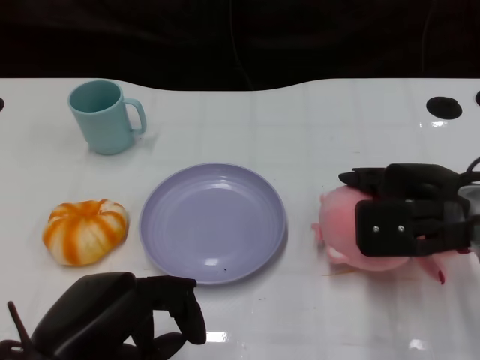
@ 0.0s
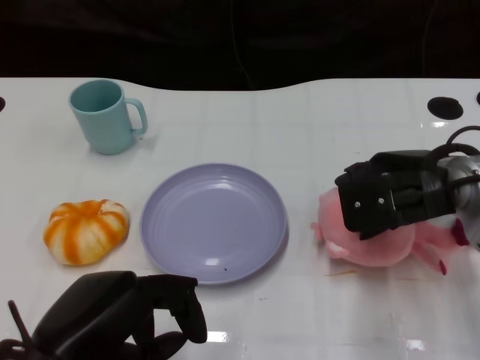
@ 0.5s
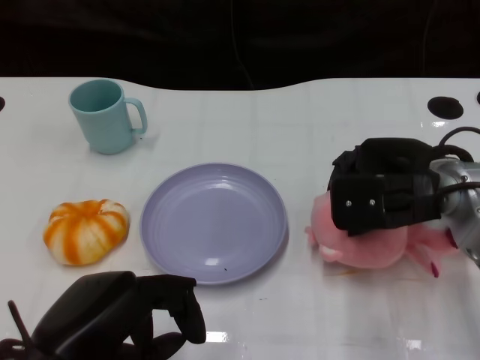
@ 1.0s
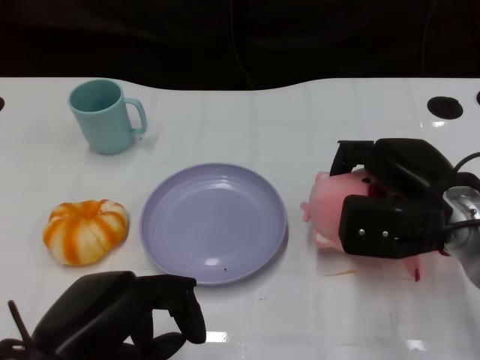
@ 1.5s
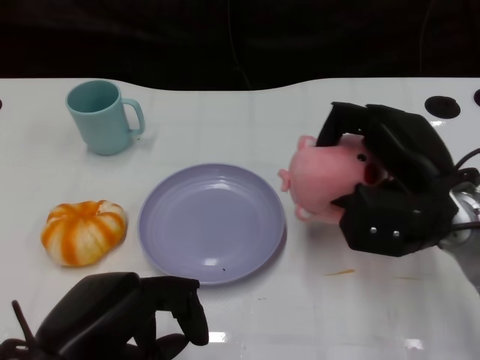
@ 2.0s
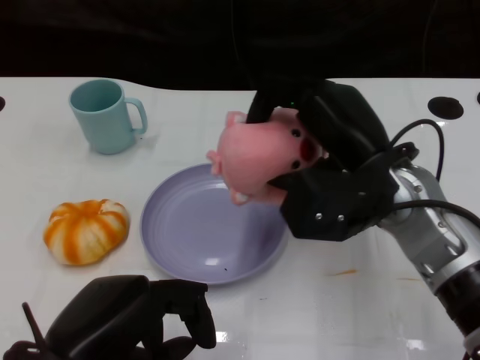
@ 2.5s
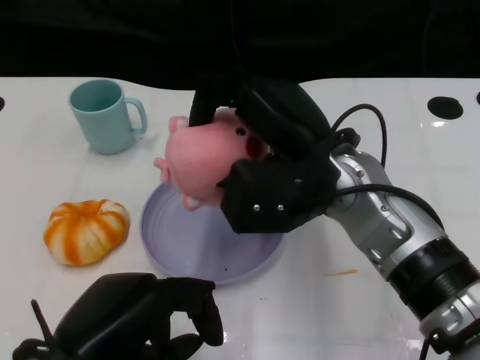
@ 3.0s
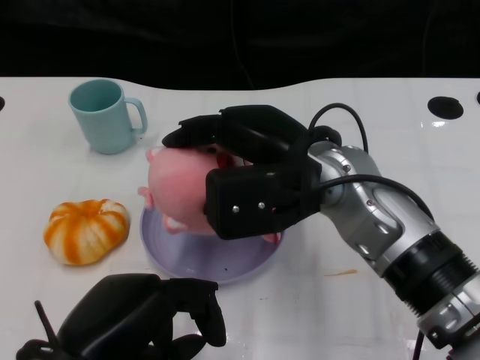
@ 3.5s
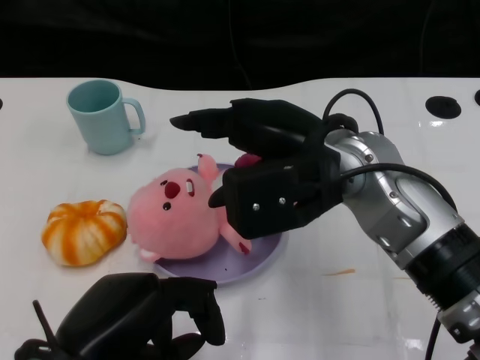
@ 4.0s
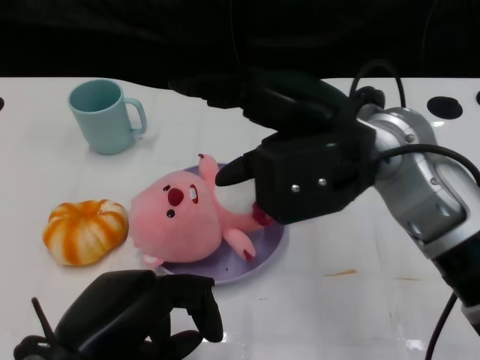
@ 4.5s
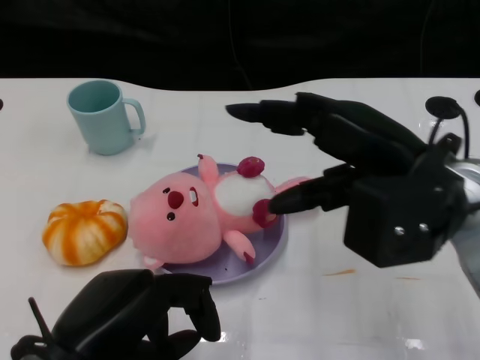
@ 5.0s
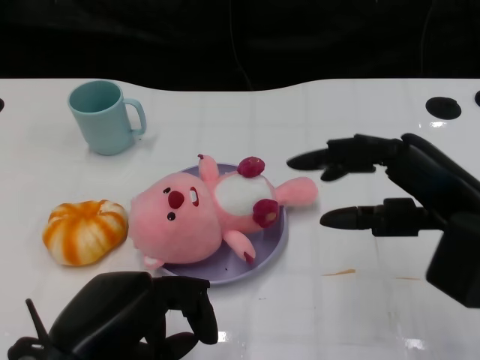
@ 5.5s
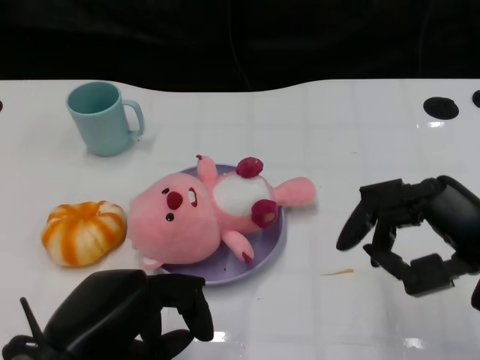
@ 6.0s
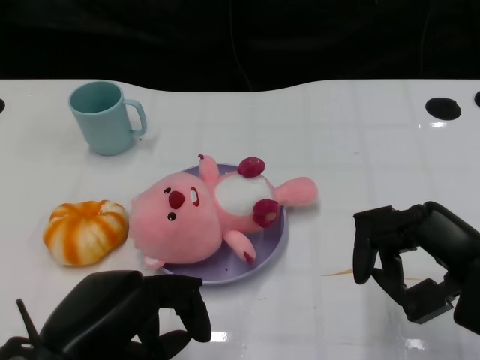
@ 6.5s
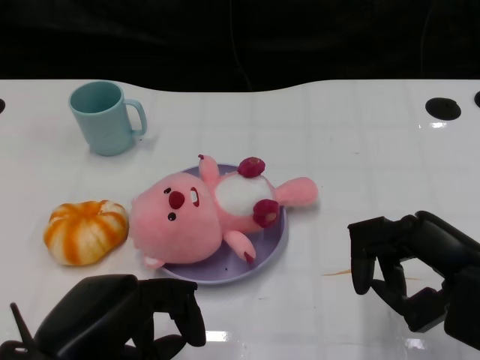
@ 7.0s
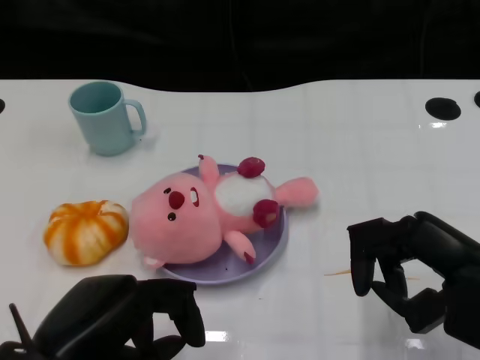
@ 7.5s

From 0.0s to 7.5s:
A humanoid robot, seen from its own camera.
Task of the whole recording: Pick up the doll on the other side of the plate and place it into the plate.
Step, from 0.0s to 2.5s: Grasp the pink doll with the right gripper.
Step, from 3.0s to 5.0s: Place the pink doll into the plate with the right gripper.
From 2.0s to 4.0s: The right hand moves to the left and upward, some 10 cm.
From 4.0s to 5.5s: The right hand shifts about 15 cm to the right and backward.
From 5.5s to 7.5s: The right hand changes place by roughly 5 cm.

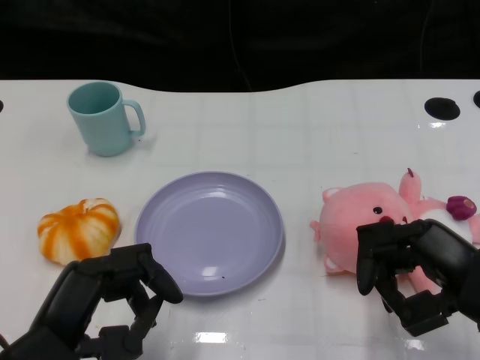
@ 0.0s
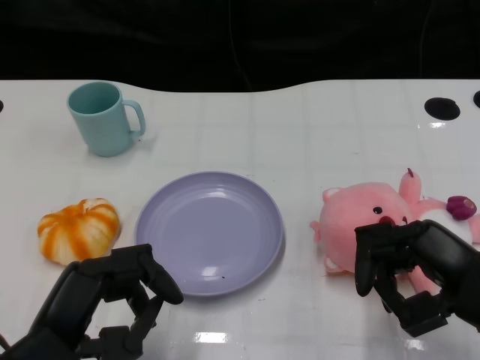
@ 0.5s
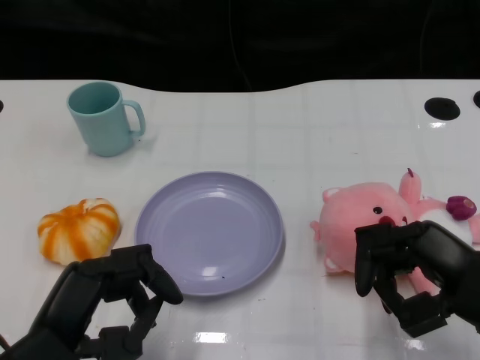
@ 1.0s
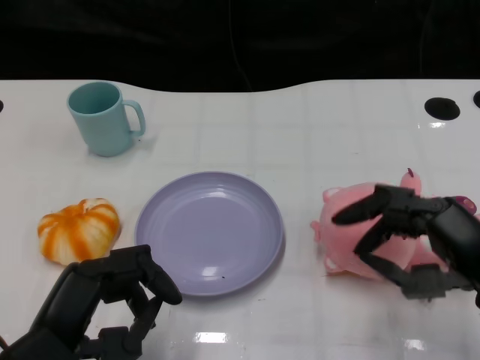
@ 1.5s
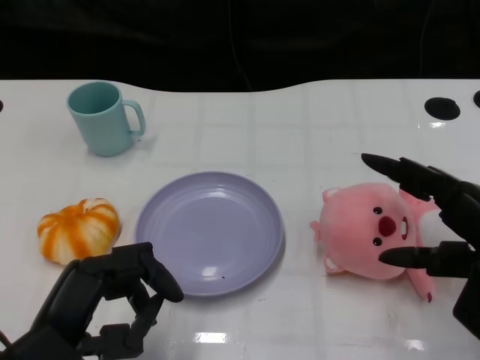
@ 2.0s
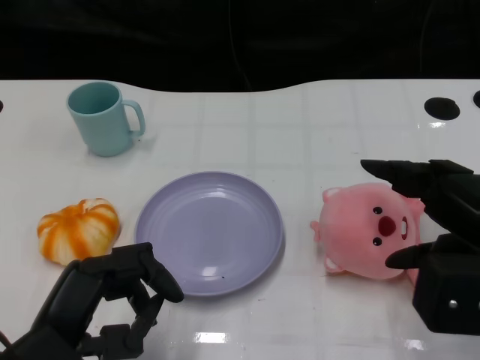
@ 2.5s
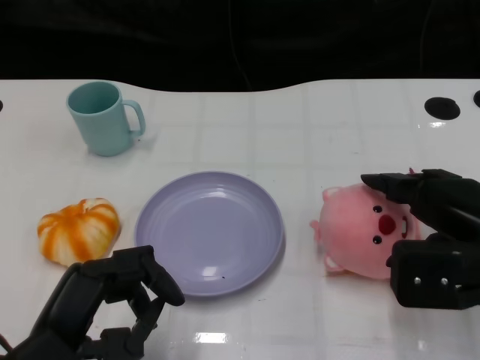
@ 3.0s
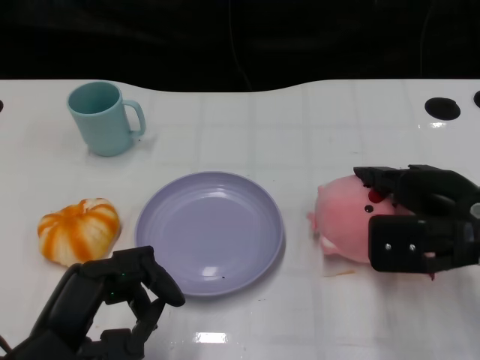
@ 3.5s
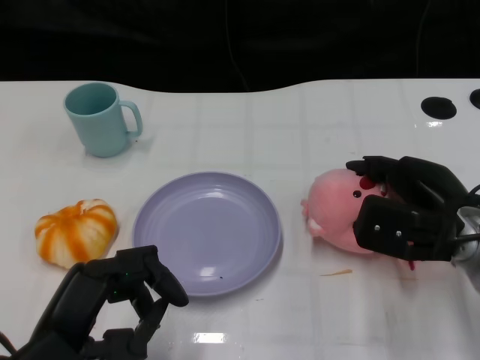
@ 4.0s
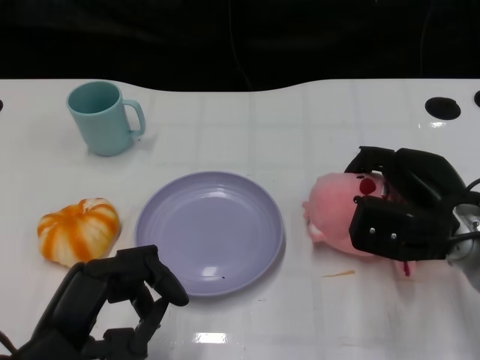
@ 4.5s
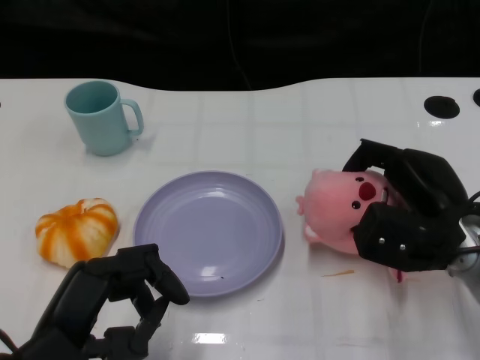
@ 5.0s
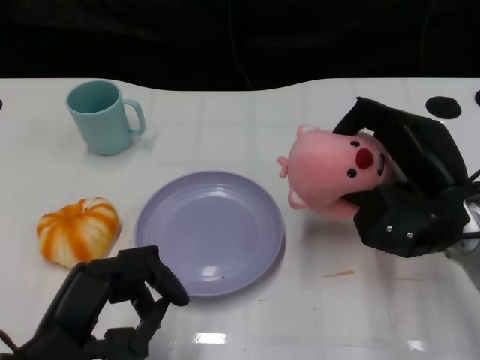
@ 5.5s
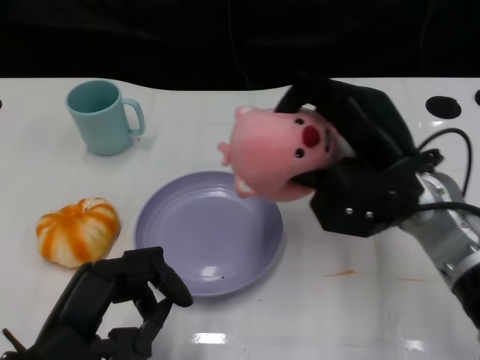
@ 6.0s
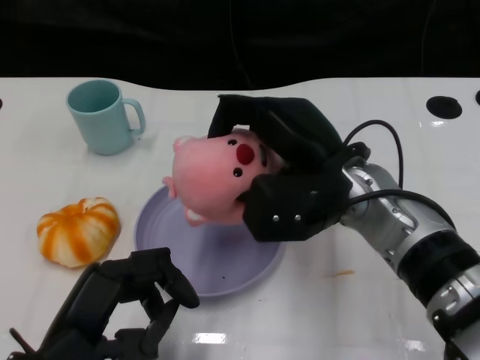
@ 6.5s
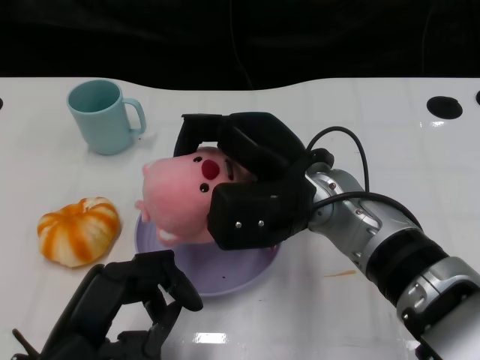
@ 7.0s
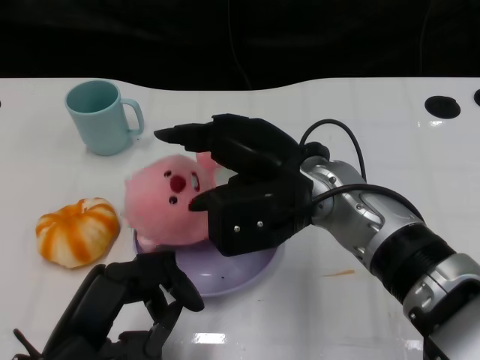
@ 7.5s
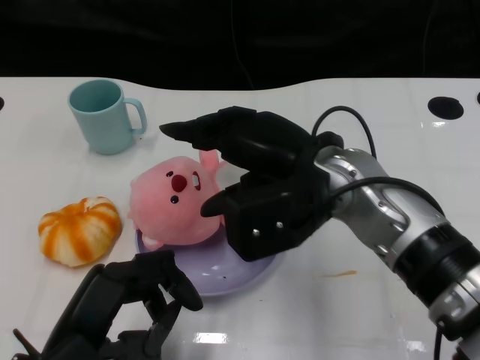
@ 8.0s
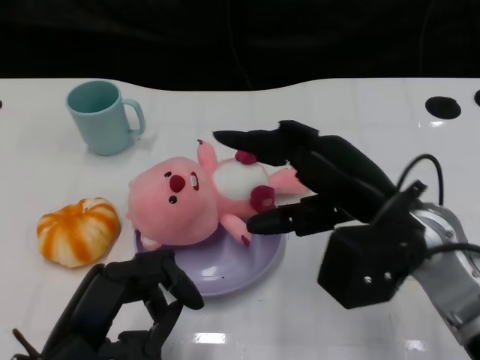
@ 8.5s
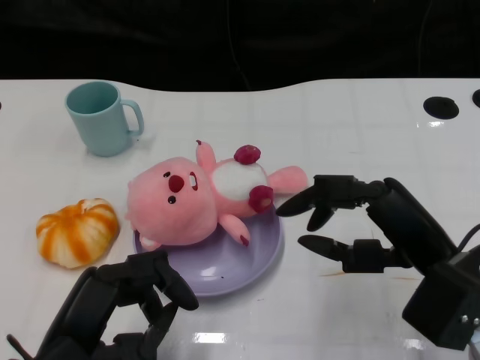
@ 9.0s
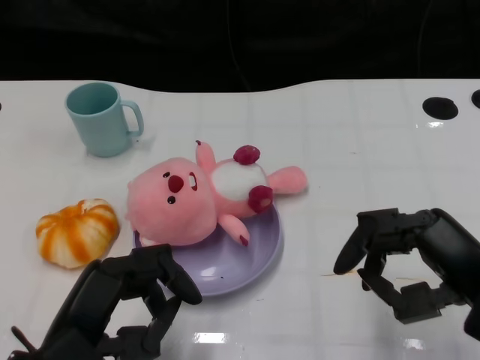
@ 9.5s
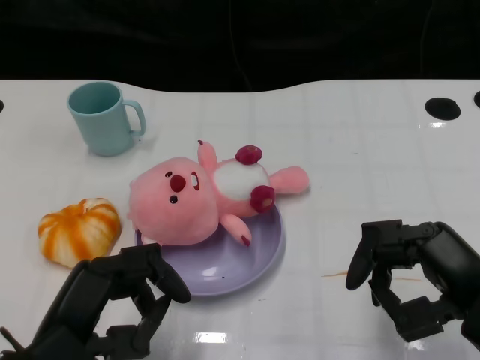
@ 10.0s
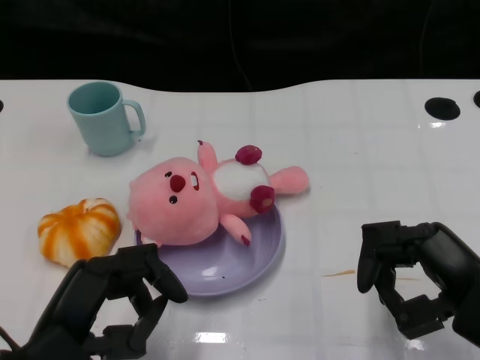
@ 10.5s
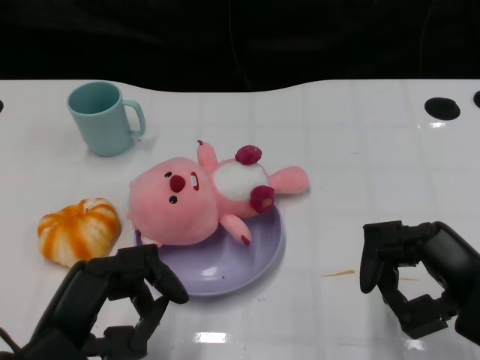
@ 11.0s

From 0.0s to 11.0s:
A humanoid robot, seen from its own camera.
Task of the whole recording: Pick up the doll on the other side of the plate and place it into the plate.
Step, from 1.0s to 6.0s: Grasp the pink doll with the right gripper.
Step, from 6.5s to 8.0s: Place the pink doll into the plate with the right gripper.
From 2.0s to 3.5s: The right hand goes some 10 cm forward.
From 5.5s to 7.5s: The right hand shifts about 15 cm to the left.
From 7.5s to 9.0s: The right hand travels to the right and backward by some 15 cm.
From 9.0s to 11.0s: The right hand changes place by approximately 5 cm.

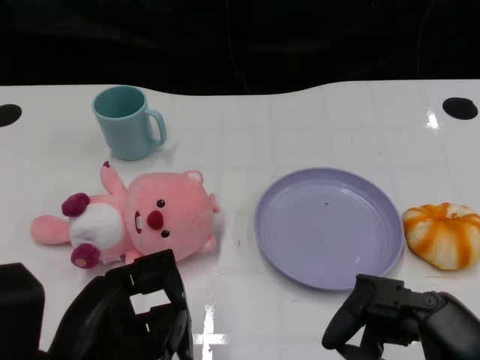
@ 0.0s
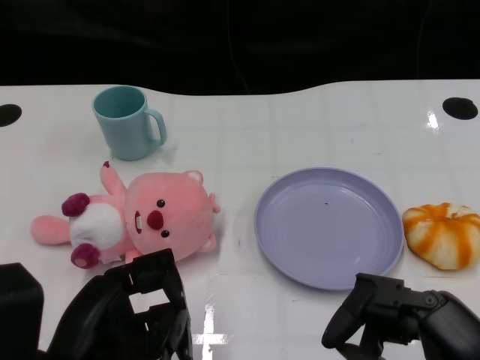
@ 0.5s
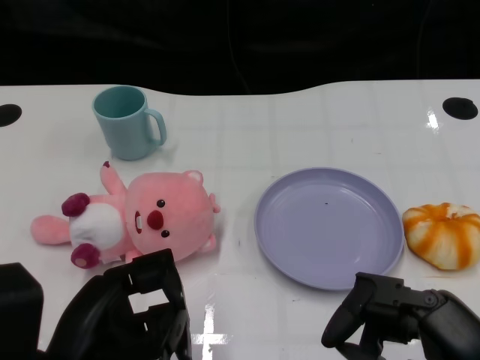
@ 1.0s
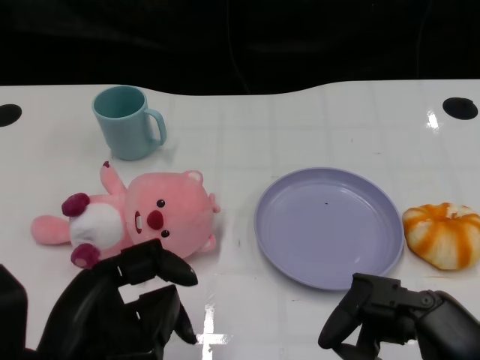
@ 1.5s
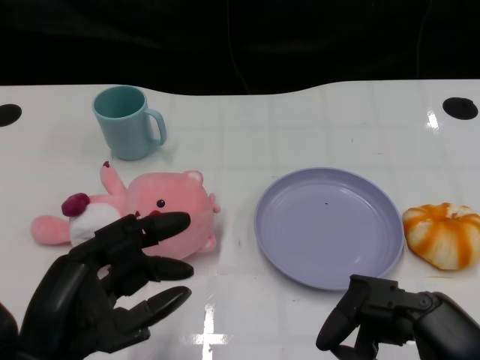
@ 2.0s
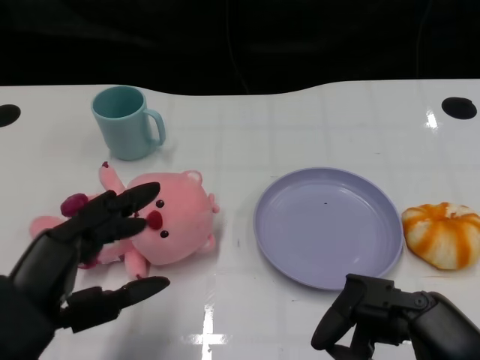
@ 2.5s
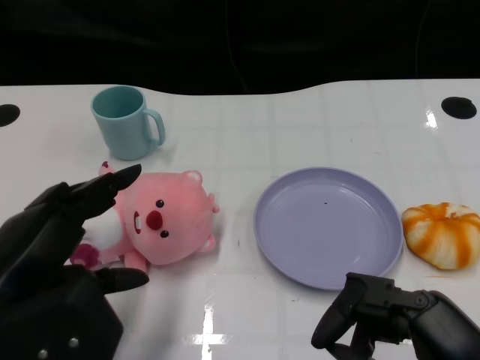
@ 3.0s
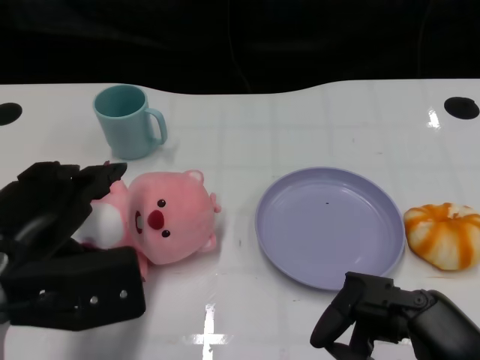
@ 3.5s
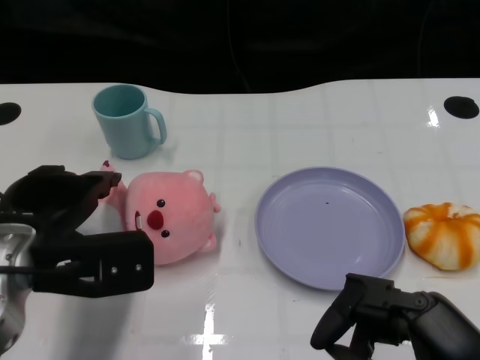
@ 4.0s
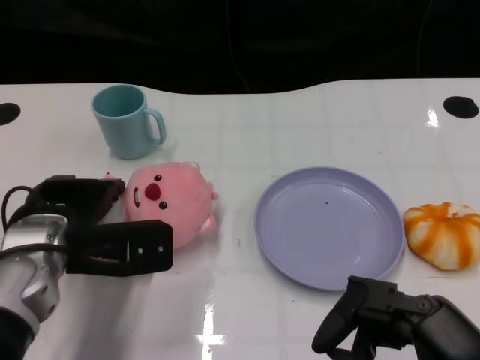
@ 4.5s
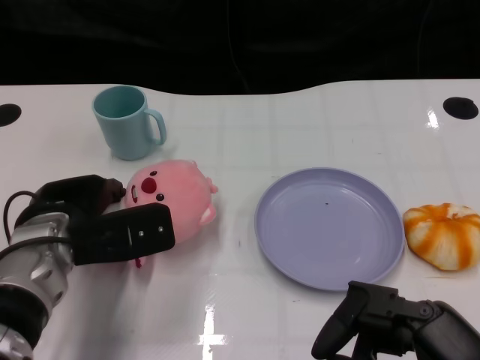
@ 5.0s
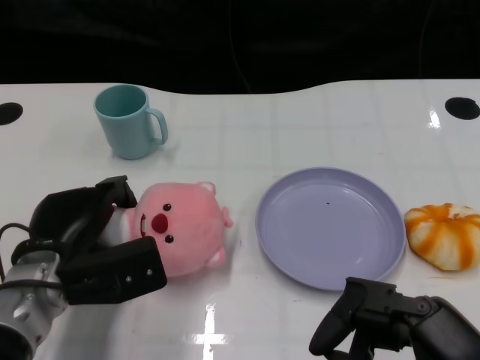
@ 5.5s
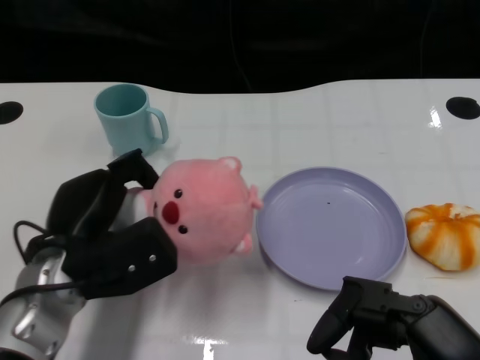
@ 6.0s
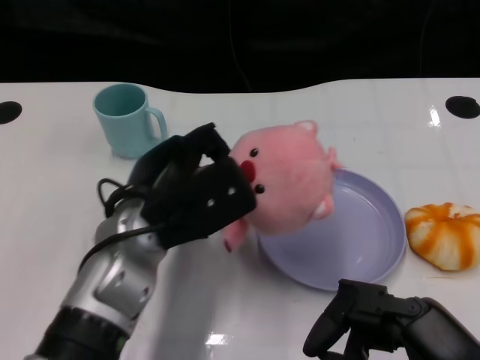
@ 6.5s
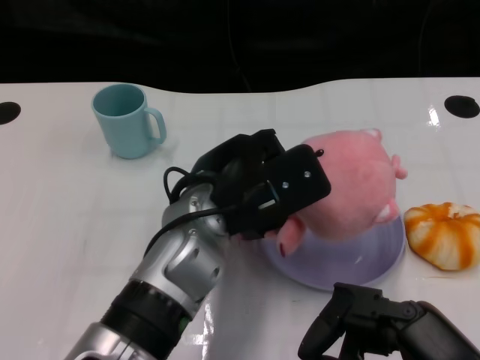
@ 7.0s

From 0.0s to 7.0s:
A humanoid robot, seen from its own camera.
Task of the whole recording: Pick up the doll on one side of the plate and place it into the plate.
Step, from 1.5s to 5.5s: Grasp the pink doll with the left gripper.
From 2.0s to 3.5s: The left hand heads forward, covering roughly 5 cm.
From 3.5s to 5.0s: The left hand travels forward and downward by approximately 10 cm.
From 5.0s to 7.0s: The left hand heads to the right and upward, covering some 15 cm.
